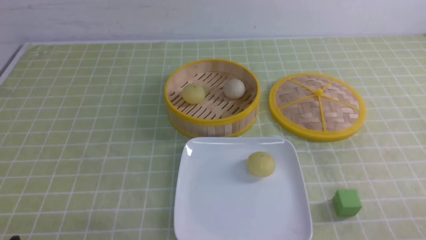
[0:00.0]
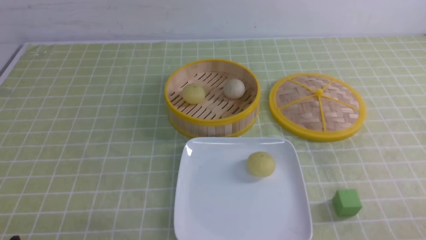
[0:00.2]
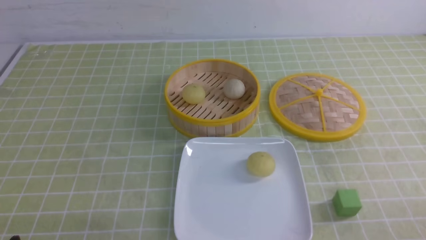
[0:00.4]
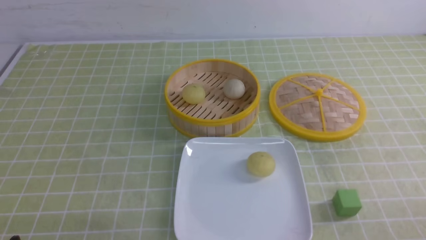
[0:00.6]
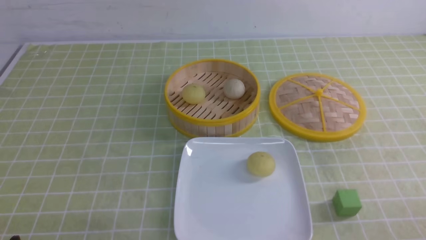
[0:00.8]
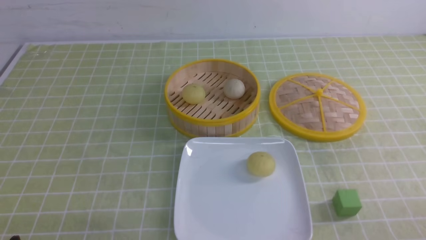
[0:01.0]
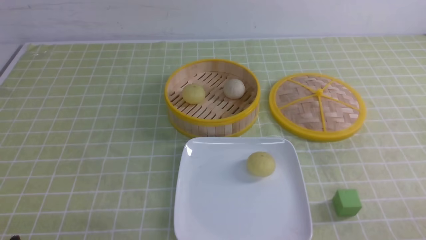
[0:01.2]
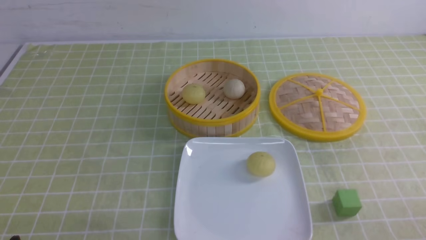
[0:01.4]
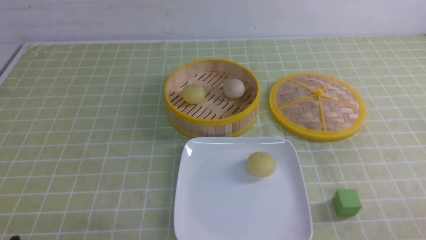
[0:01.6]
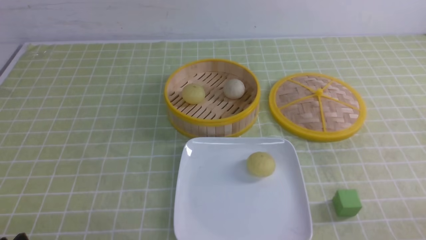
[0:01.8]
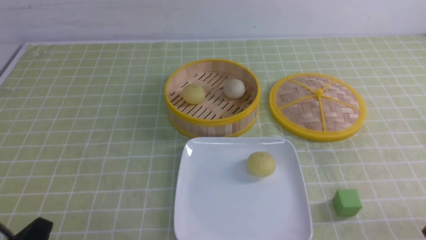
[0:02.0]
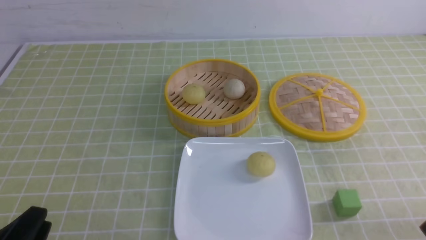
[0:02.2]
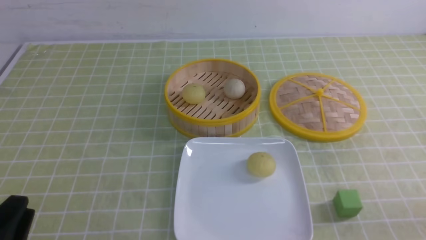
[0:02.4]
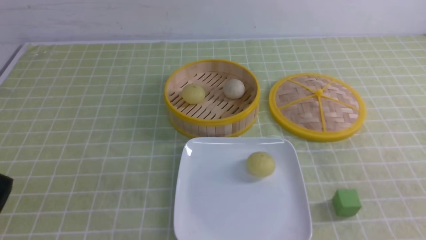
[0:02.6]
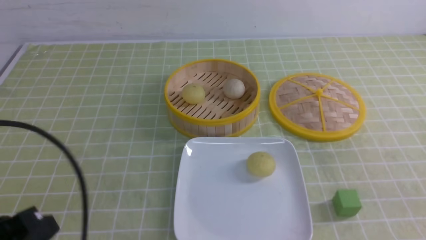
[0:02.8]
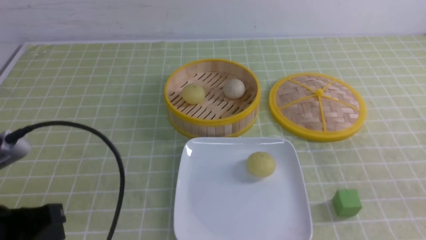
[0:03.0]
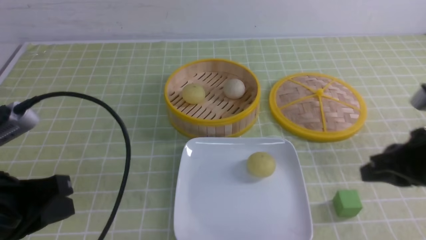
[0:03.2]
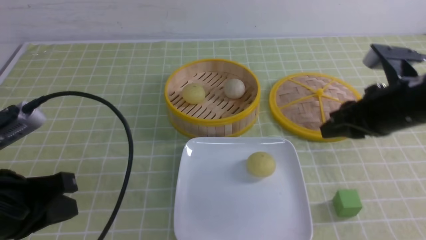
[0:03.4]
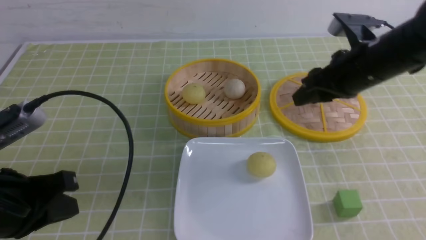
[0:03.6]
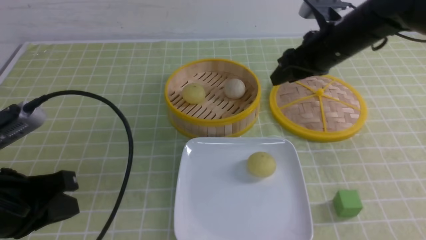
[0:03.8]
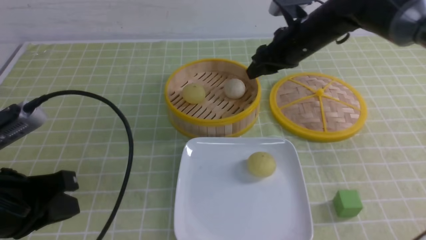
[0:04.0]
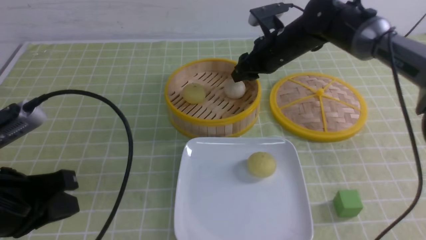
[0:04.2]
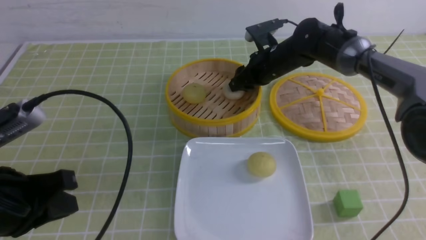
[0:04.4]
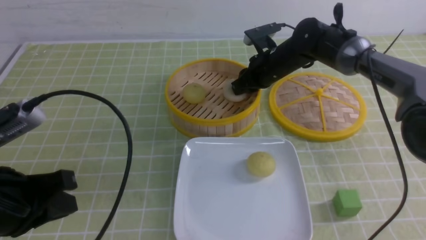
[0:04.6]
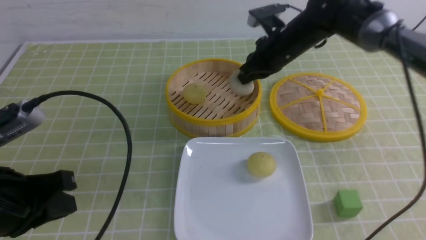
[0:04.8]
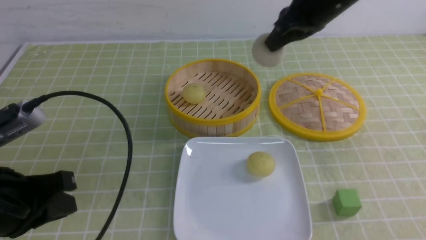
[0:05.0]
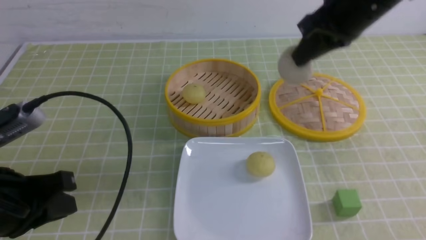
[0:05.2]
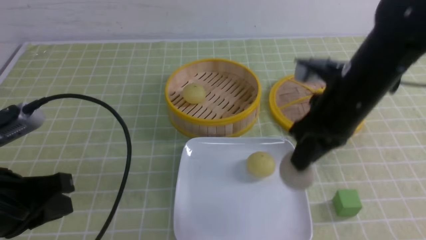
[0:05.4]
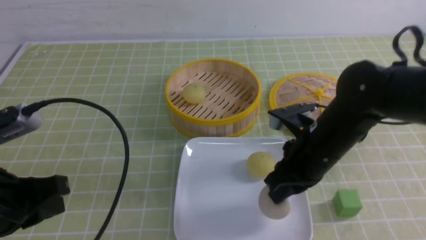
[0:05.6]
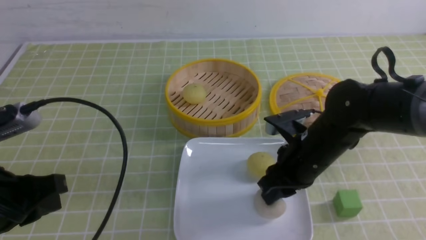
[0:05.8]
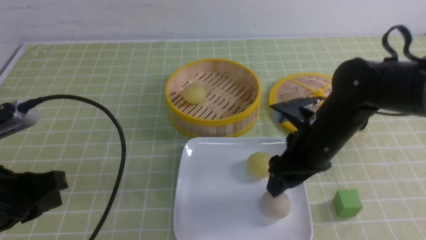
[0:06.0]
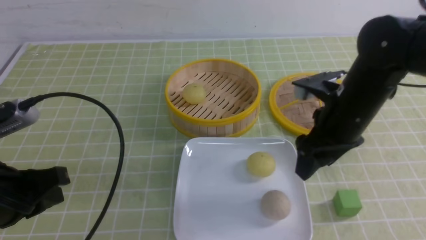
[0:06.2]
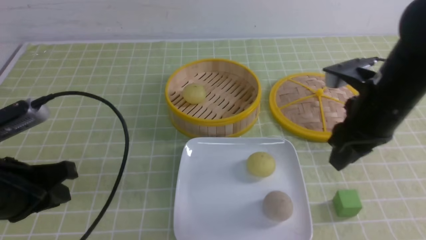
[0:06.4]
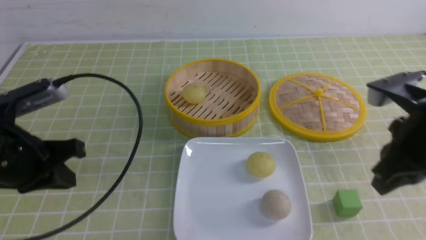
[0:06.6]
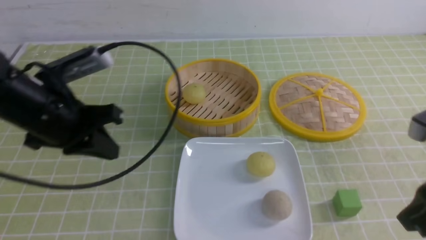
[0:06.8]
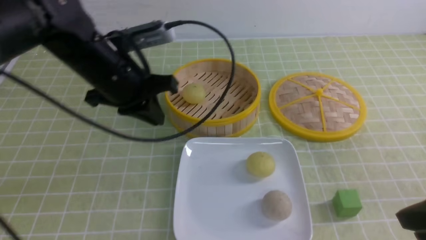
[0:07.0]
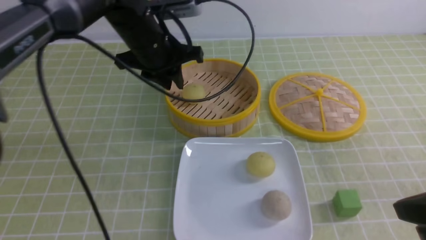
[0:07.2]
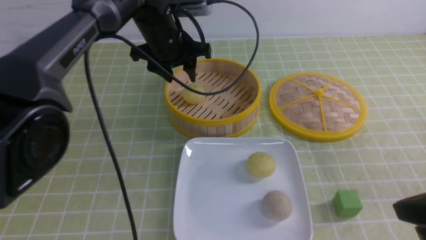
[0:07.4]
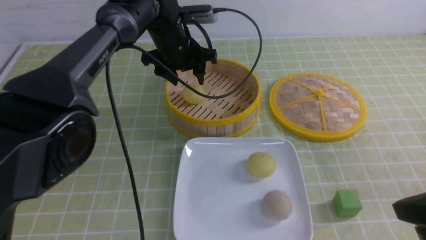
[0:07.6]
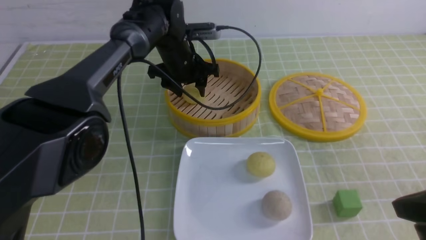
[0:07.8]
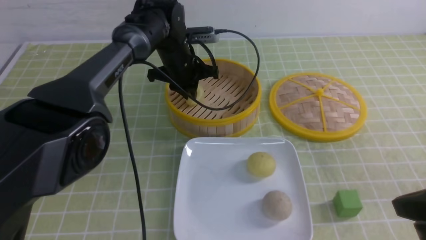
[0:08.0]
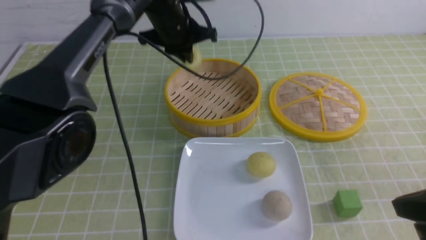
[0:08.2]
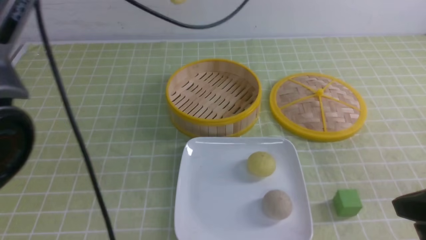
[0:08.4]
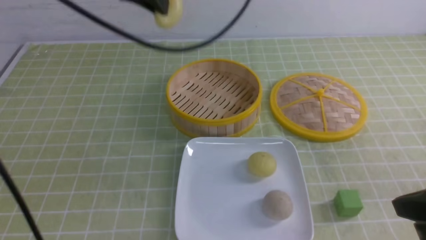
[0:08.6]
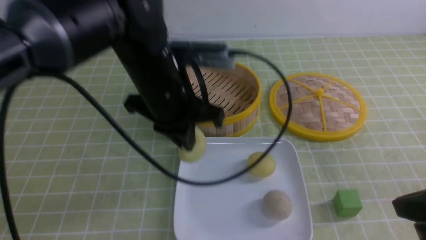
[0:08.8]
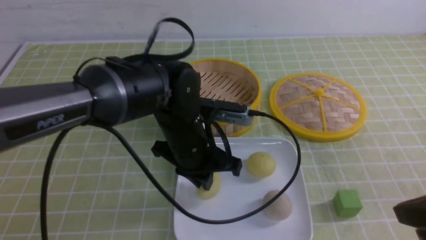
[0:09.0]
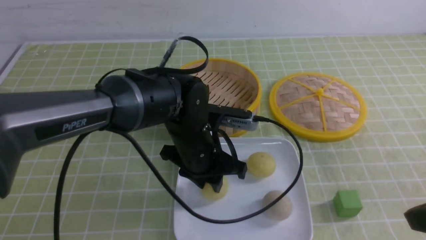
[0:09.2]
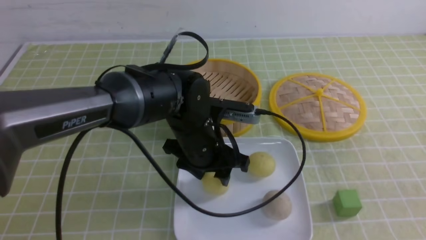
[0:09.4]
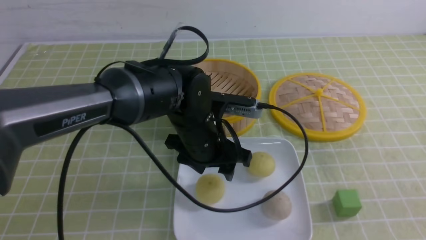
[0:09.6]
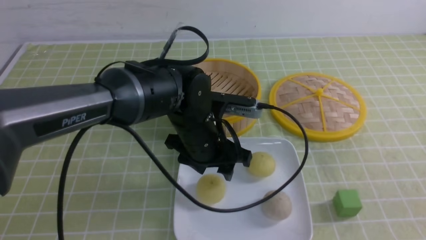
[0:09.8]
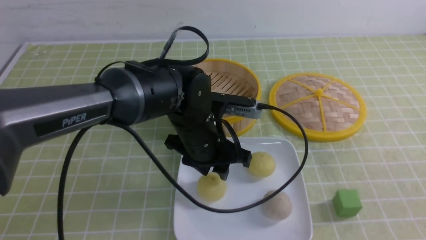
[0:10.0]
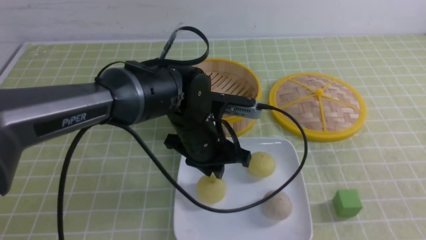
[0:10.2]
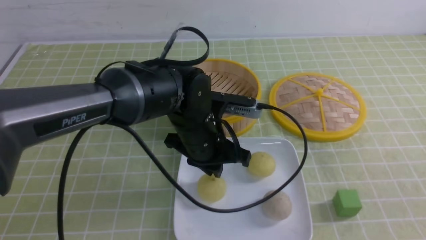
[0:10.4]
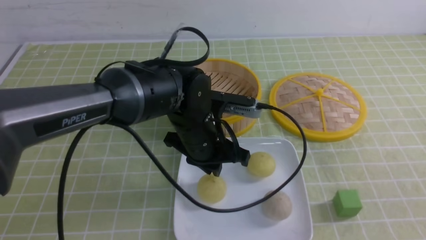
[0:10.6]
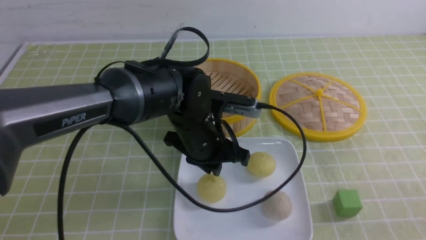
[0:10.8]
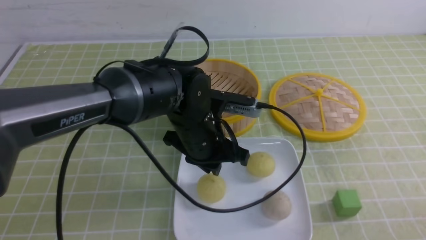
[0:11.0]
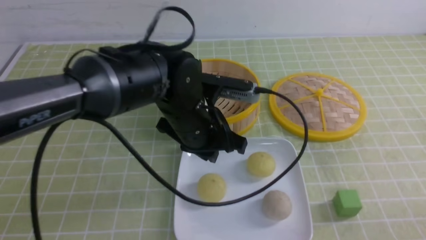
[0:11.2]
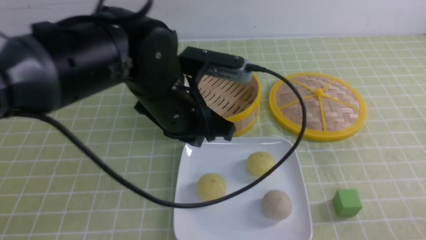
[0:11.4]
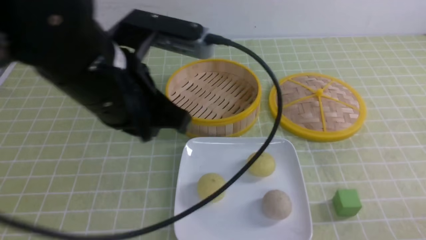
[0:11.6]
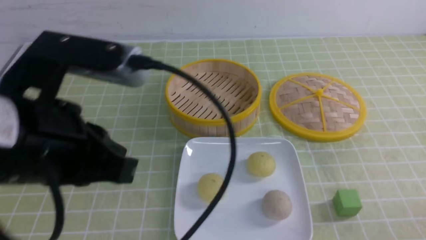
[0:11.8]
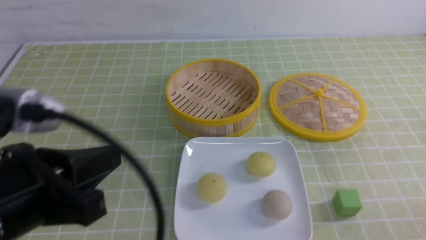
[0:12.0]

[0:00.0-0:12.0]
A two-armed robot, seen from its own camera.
Step, 0:00.0 to 0:04.6: use the right arm to grab the steamed stuffed bun that is closest to it.
Step, 0:04.8 to 0:05.8: use the right arm to put the steamed stuffed bun into the plate.
Step, 0:06.2 to 0:07.8: use the left arm to grab the steamed stuffed bun that is closest to it.
Step, 0:08.2 to 0:09.4: use the left arm to put the steamed stuffed bun into the plate.
0:00.0 to 0:01.6: Neither gripper changes place.
0:01.6 to 0:03.0: The left gripper is displaced upward and forward by about 10 cm, and closes.
0:03.0 to 0:04.4: The right gripper moves forward and to the left, about 40 cm, and opens its fingers.
0:04.4 to 0:06.0: The right gripper heads backward, covering some 20 cm, and closes, then opens again.
0:06.0 to 0:07.6: The right gripper is displaced backward and to the right by approximately 20 cm, and closes up, while the left gripper heads forward and to the right, covering about 35 cm, and opens.
0:07.6 to 0:09.0: The left gripper goes roughly 20 cm backward, and closes up.
0:09.0 to 0:10.4: The right gripper goes some 10 cm backward. Meanwhile the left gripper opens and closes again.
0:10.4 to 0:12.0: The left gripper moves backward, to the left and upward, about 30 cm; the right gripper goes approximately 10 cm downward.

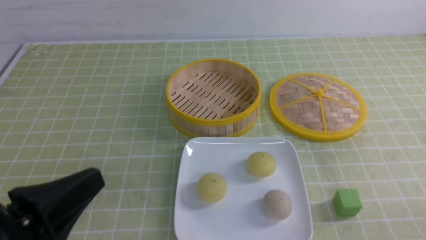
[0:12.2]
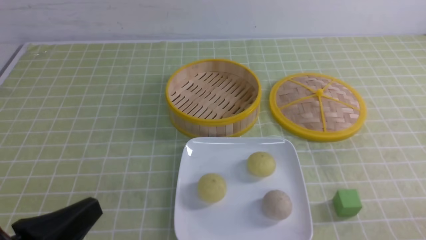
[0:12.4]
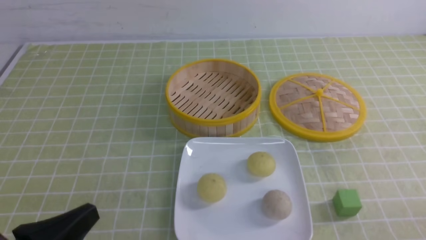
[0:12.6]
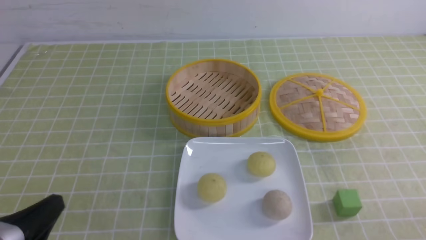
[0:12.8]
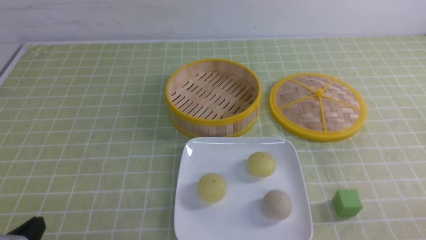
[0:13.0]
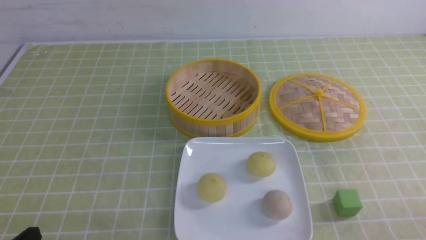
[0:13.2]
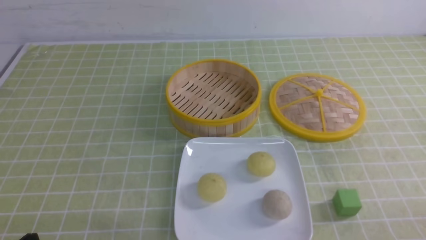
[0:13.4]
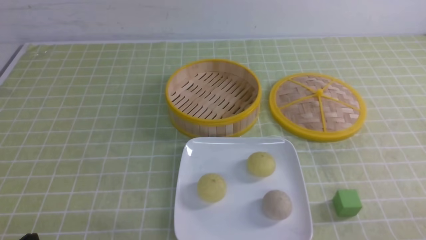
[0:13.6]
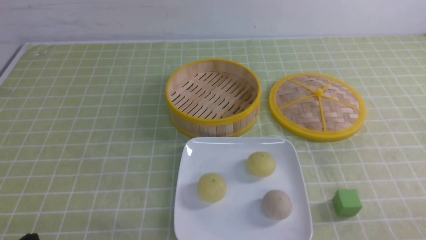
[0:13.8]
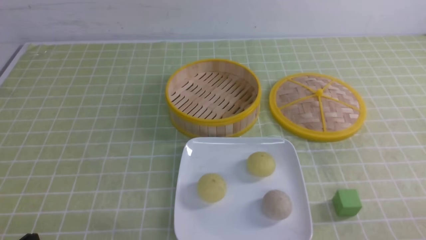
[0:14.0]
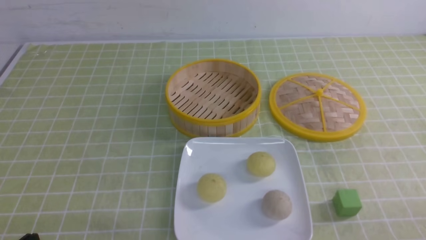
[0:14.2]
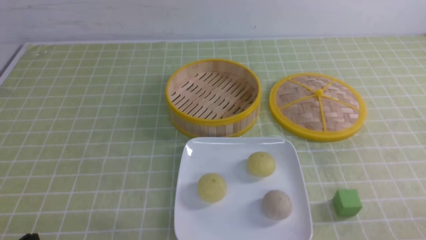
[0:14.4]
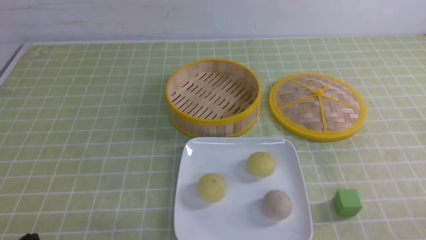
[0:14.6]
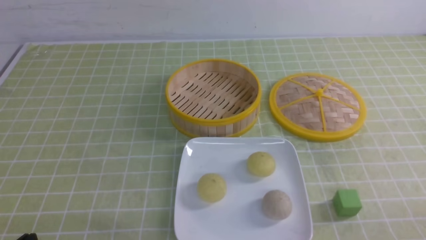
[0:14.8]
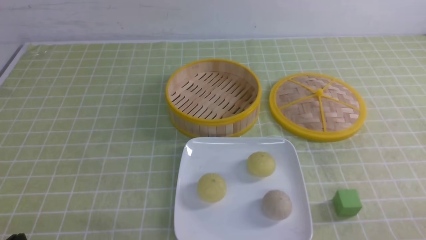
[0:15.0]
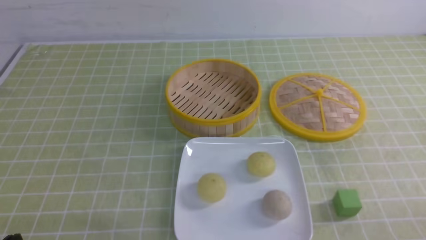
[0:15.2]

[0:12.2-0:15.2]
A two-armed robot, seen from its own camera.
0:12.2 to 0:13.8: The left gripper moves downward and to the left, some 15 cm.

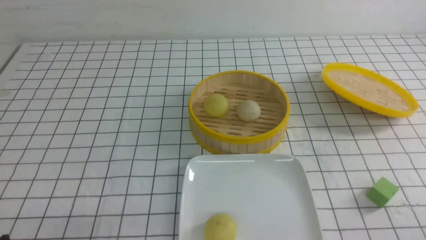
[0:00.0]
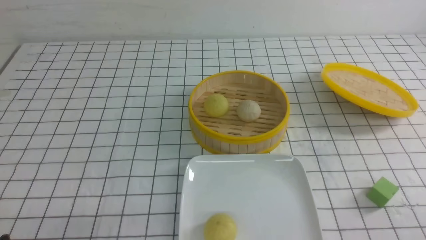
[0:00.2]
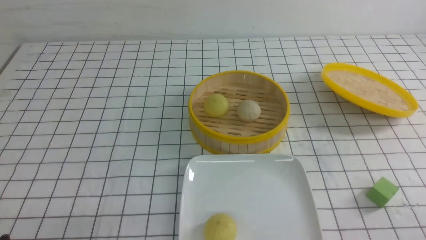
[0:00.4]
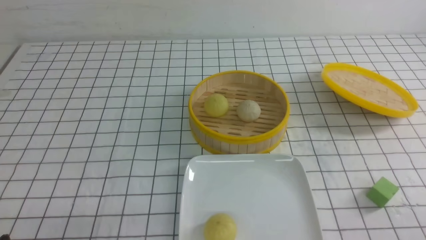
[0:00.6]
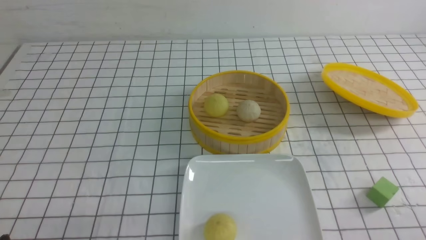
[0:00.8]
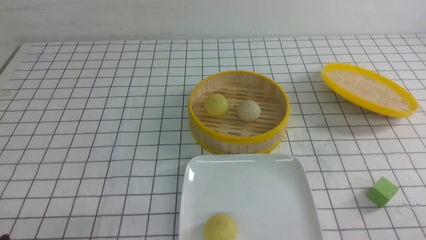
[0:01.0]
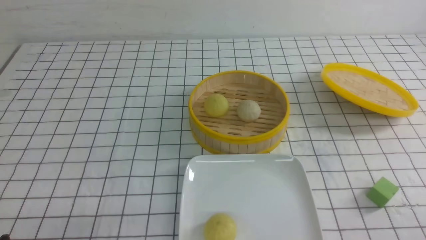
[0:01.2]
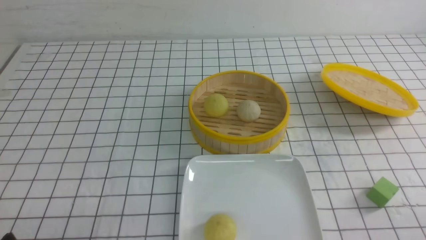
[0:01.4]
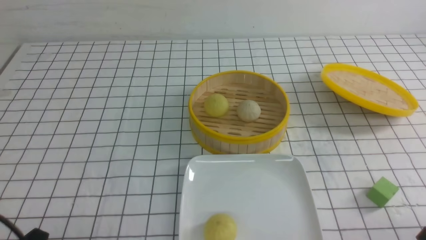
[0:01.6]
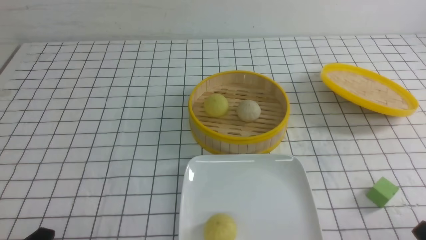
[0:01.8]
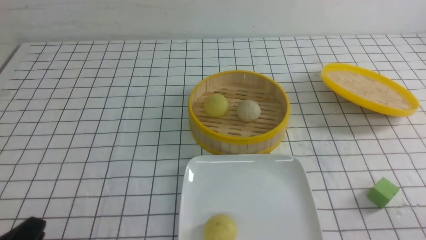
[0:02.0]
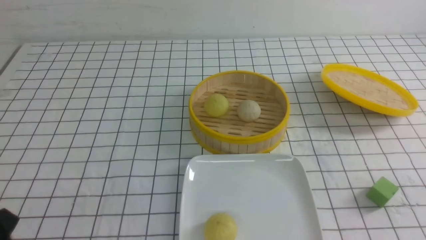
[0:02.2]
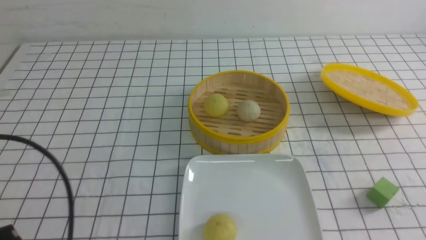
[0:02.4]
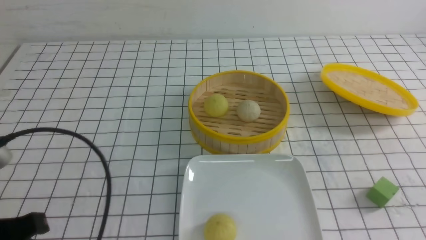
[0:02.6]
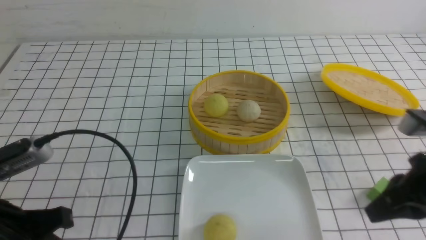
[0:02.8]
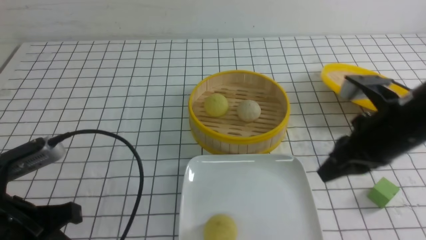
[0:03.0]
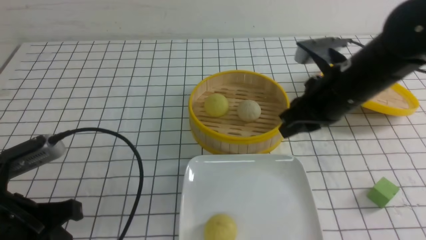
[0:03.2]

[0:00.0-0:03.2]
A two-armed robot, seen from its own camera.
0:01.6 to 0:03.2: The right gripper goes roughly 30 cm forward, to the left and upward, and closes, then opens again. Meanwhile the left gripper is displaced forward and upward by roughly 10 cm, and closes its fingers.
